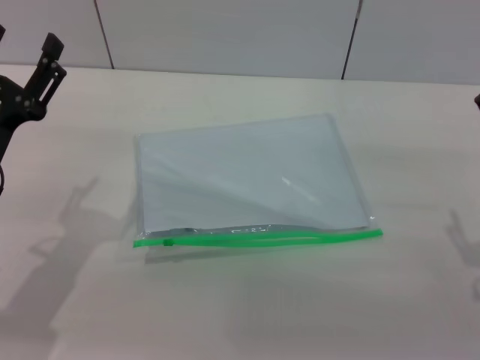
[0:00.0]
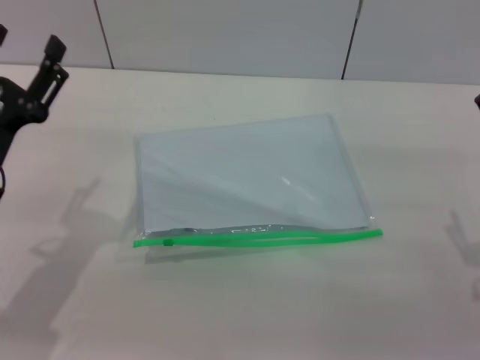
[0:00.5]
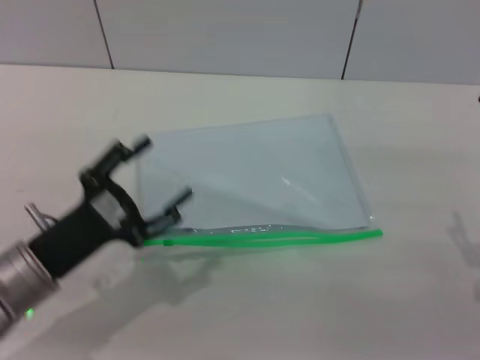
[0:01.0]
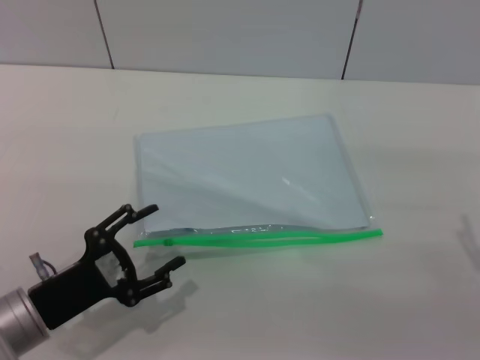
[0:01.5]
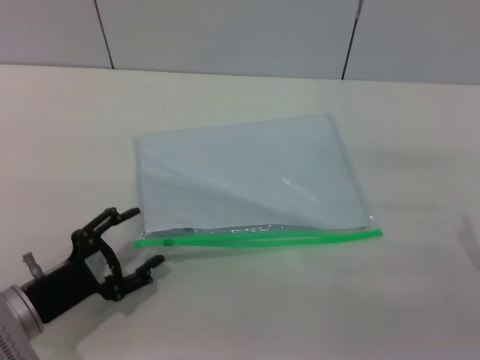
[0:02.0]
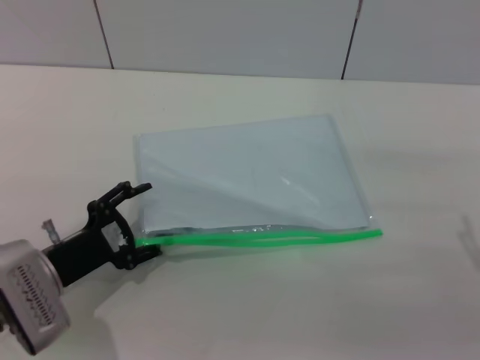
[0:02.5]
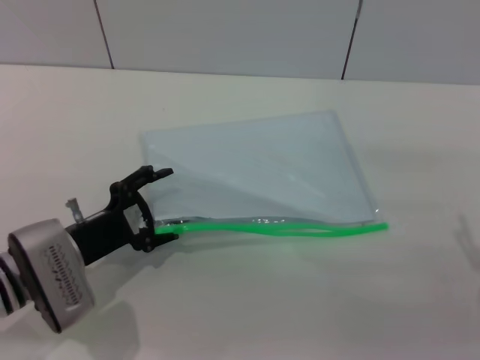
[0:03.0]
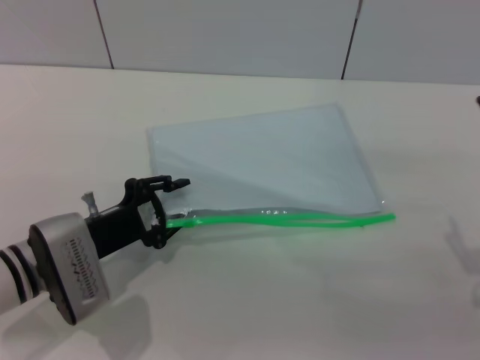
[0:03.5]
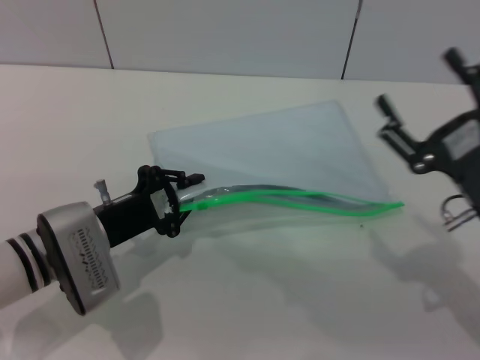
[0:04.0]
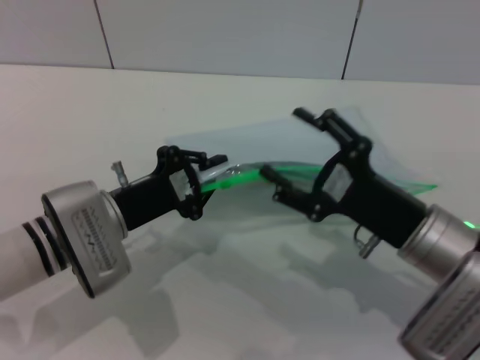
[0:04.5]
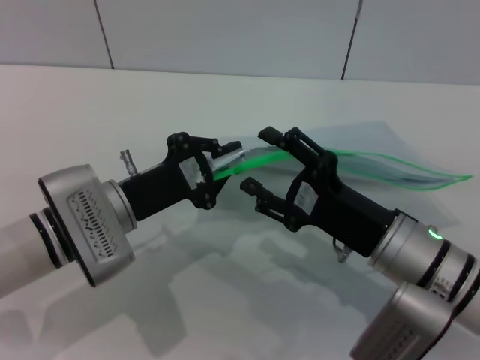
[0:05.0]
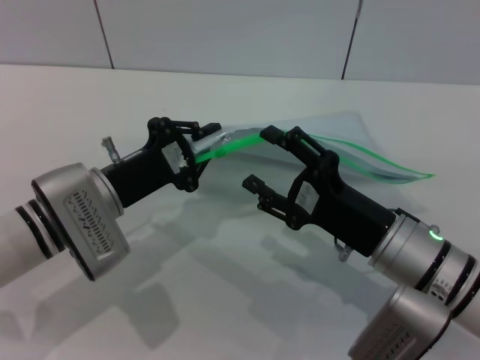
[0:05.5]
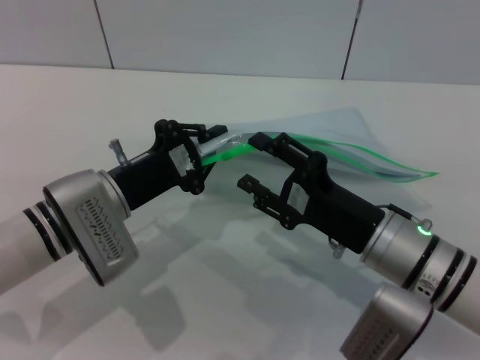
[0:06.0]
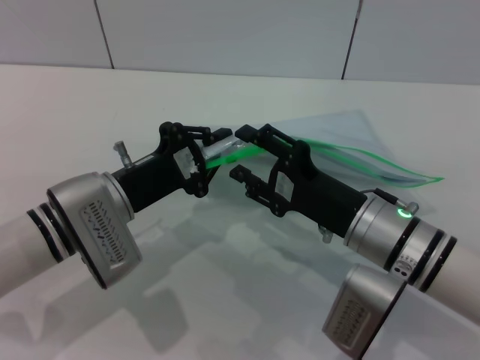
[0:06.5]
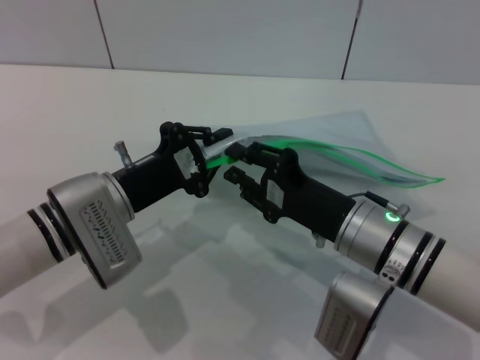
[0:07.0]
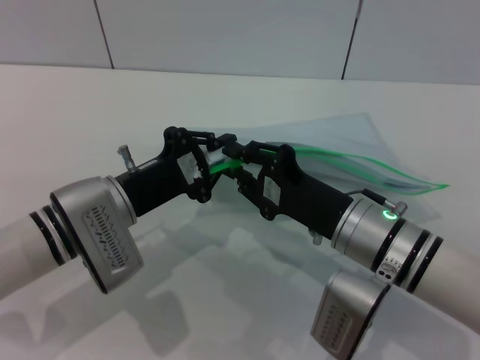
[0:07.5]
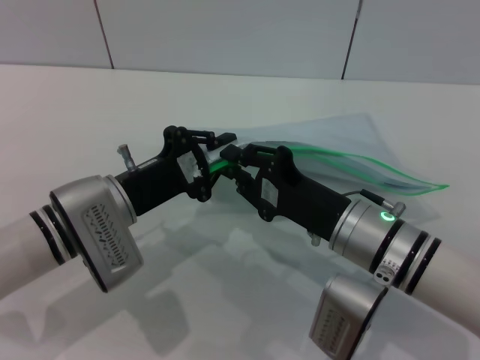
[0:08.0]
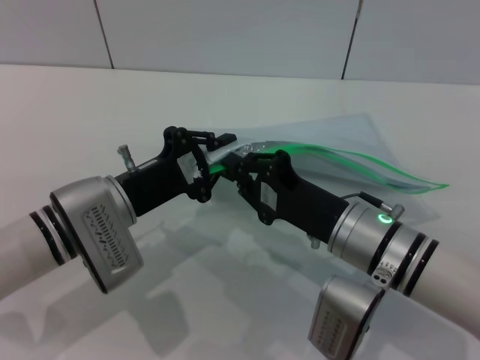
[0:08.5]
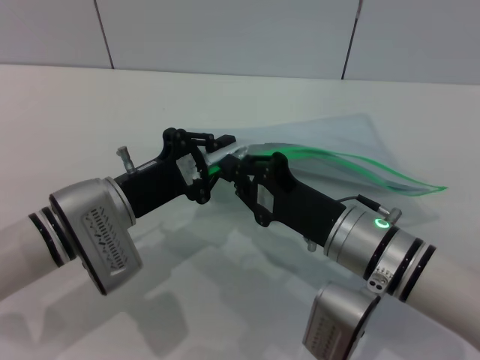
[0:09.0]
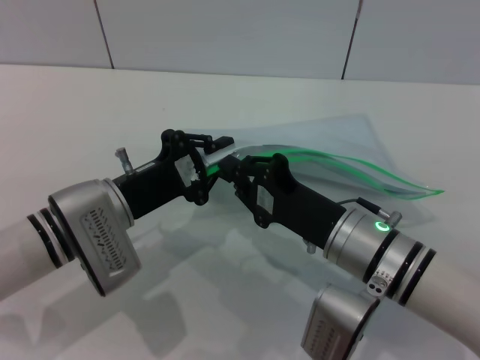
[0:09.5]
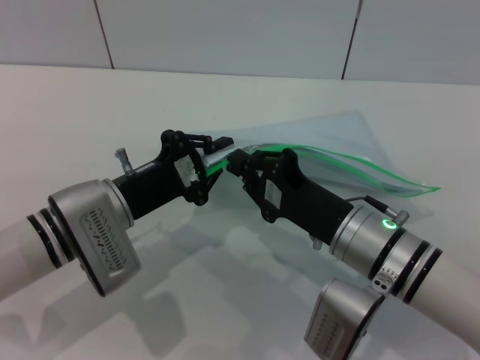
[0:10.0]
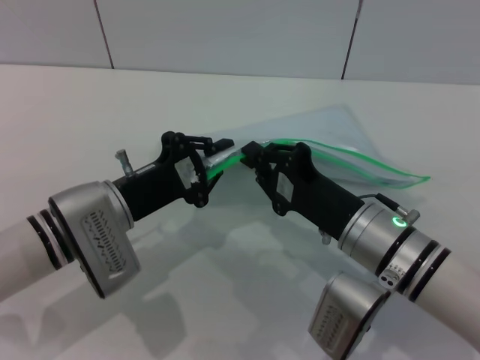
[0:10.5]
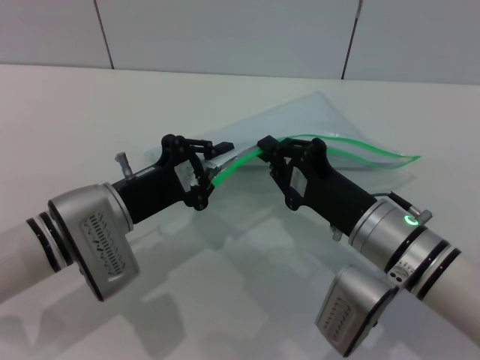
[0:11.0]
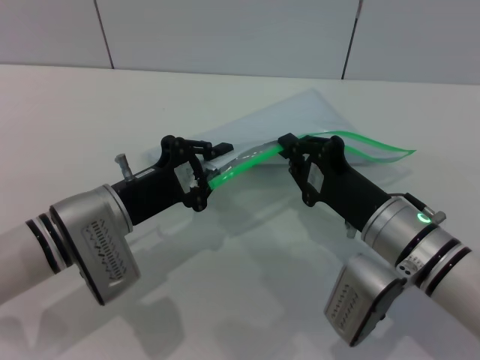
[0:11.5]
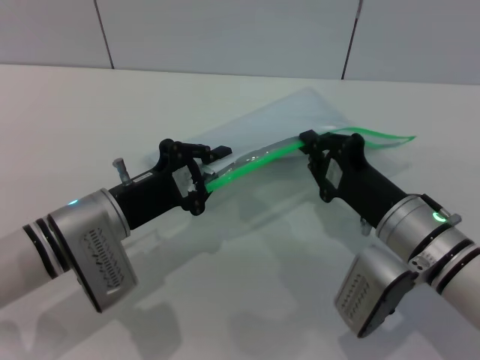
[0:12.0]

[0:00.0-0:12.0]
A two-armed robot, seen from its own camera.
Step, 0:00.0 to 0:04.0: Pick up the transparent plastic bag with the left gripper.
0:00.0 to 0:02.0: The left gripper goes some 10 cm downward and backward.
0:02.0 to 0:04.0: The left gripper is displaced forward by roughly 10 cm, and closes up.
0:04.0 to 0:06.0: The right gripper shifts some 10 cm to the left.
0:06.0 to 0:08.0: The right gripper closes.
0:08.0 to 0:10.0: The two grippers keep their place.

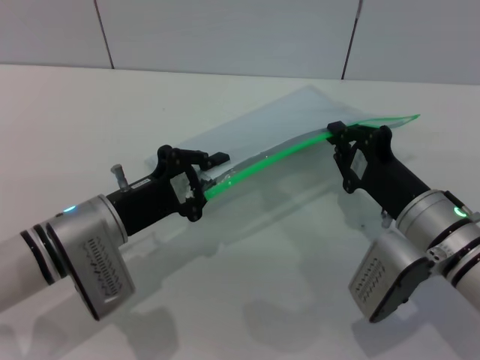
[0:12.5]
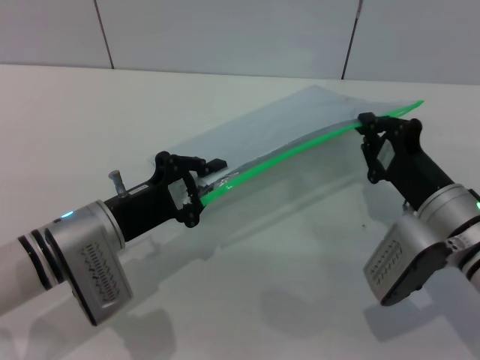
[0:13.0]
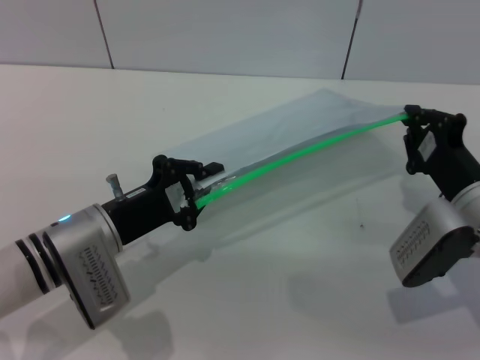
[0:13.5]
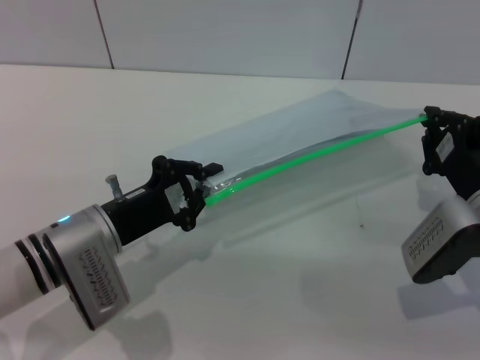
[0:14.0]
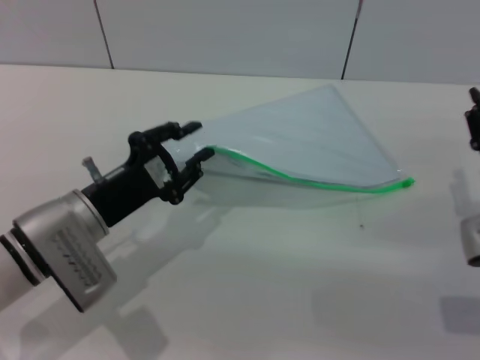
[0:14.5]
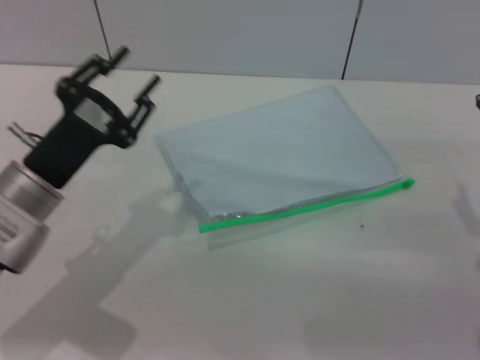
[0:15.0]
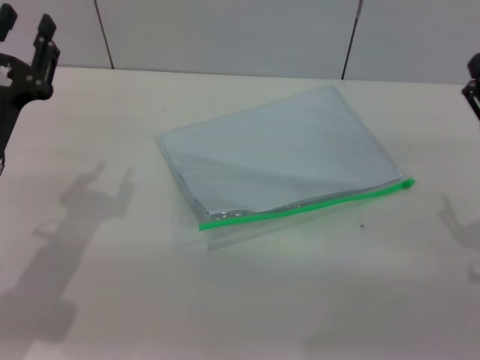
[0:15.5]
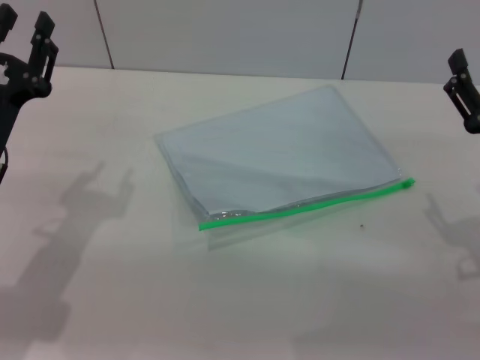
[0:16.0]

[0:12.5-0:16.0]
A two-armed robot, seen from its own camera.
Step, 0:12.5 to 0:14.5: Pulling up the zipper on the transparent plastic bag with the right gripper to close it.
0:12.5 to 0:14.5: The right gripper heads to the right, covering about 10 cm, and opens.
0:14.5 to 0:16.0: The right gripper opens its fingers, while the left gripper moves to the left, roughly 5 cm.
